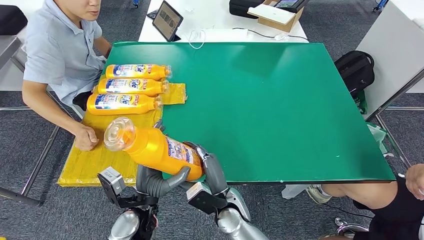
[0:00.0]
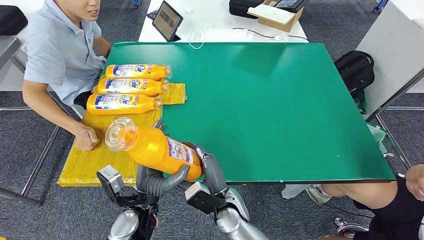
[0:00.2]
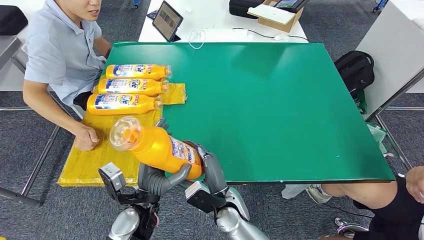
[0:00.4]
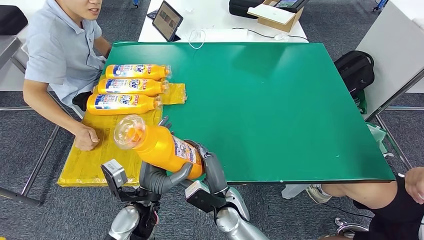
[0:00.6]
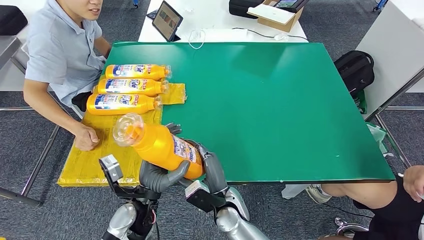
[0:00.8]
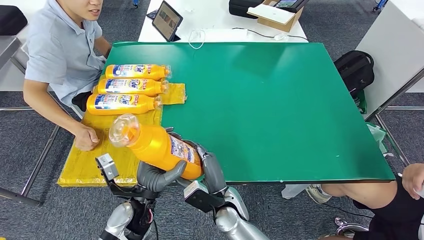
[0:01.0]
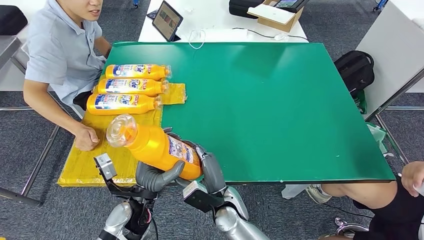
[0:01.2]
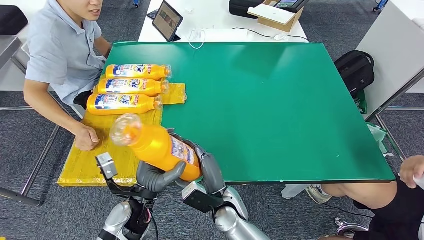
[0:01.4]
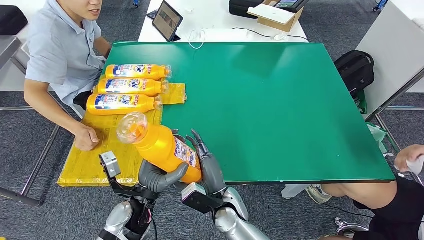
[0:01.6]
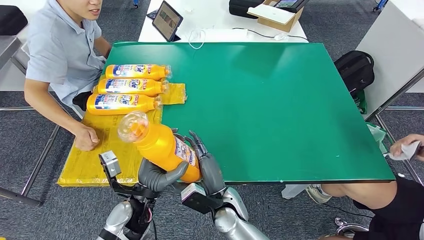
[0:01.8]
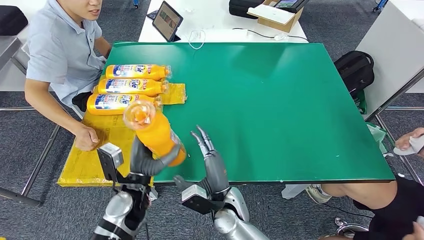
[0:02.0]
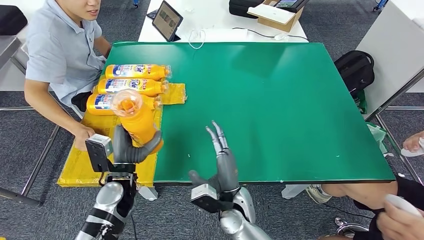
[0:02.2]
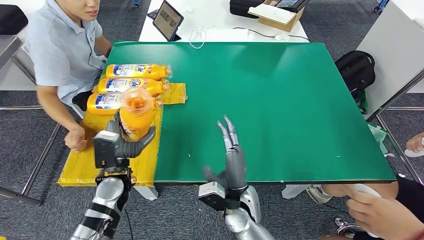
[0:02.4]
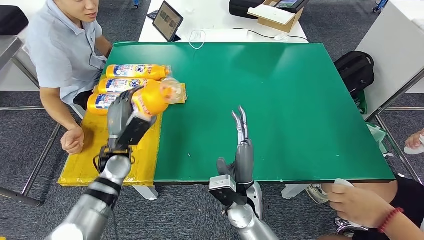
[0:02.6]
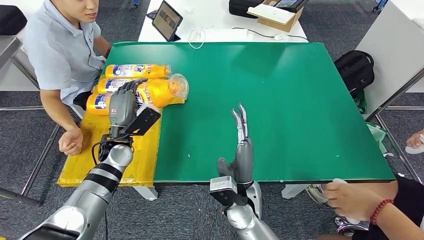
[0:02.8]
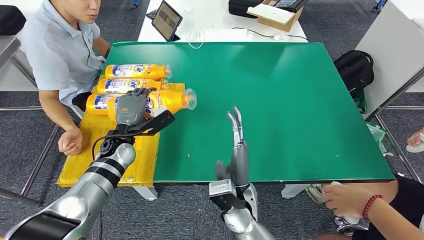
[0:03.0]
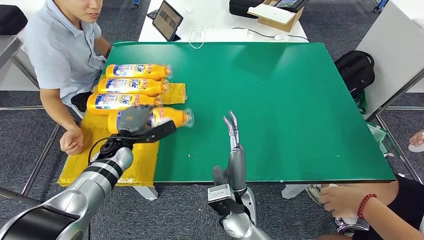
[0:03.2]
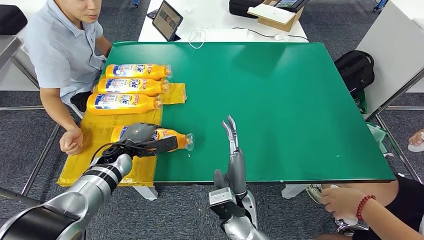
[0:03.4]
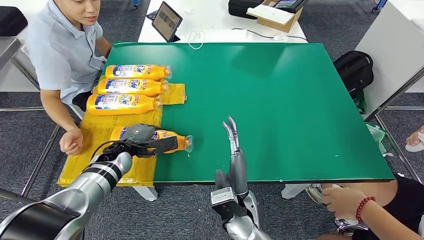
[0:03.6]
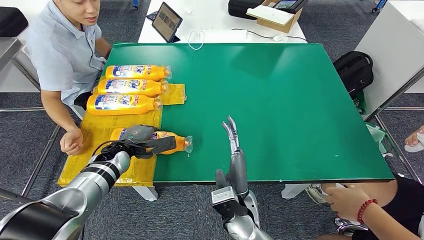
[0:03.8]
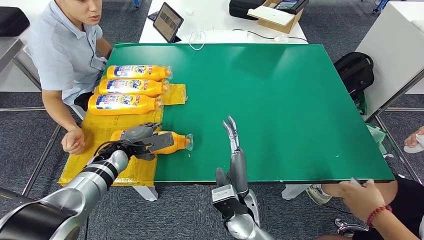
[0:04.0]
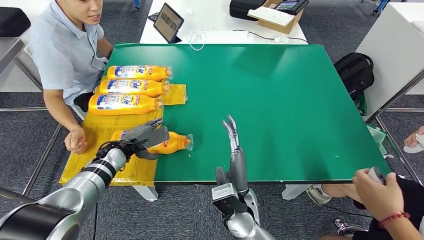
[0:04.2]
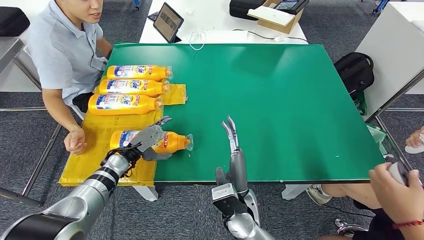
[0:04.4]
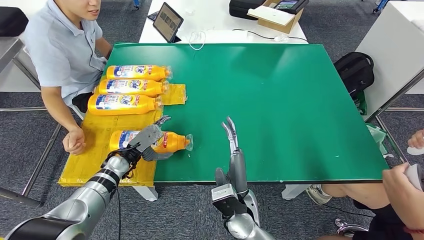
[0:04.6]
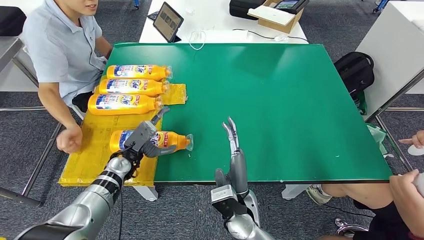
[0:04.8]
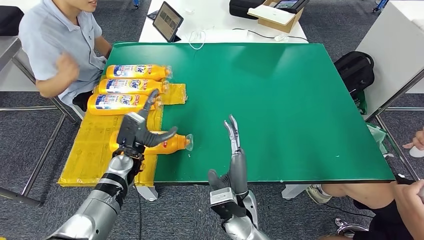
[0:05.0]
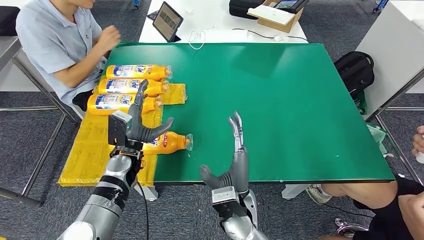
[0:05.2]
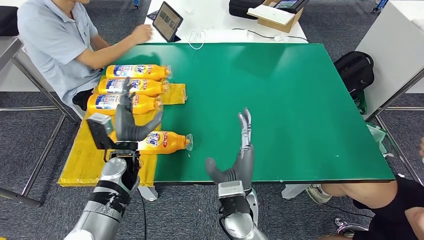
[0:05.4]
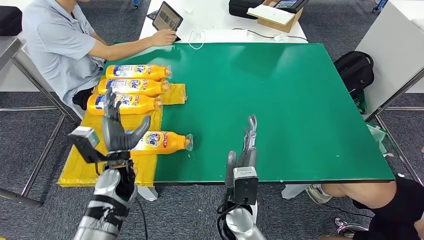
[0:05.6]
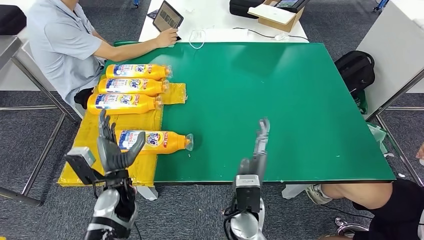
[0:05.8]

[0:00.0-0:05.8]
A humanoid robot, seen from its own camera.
Step, 0:01.2 to 0:05.8: Flip the fast-moving consumer goods bottle to the front side.
0:00.0 to 0:01.4: The hands make only small movements.
